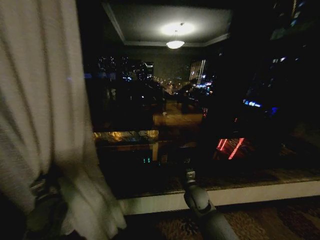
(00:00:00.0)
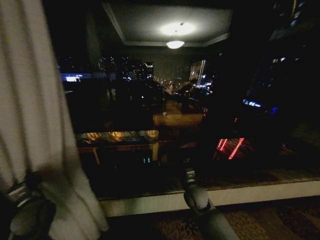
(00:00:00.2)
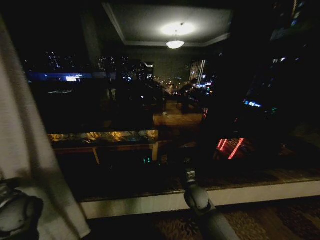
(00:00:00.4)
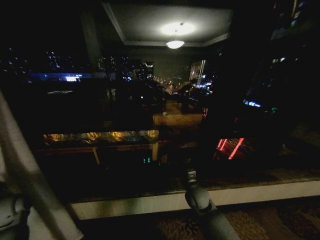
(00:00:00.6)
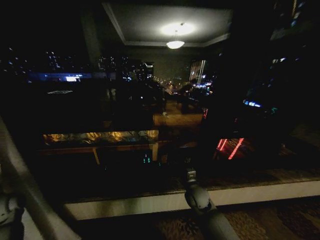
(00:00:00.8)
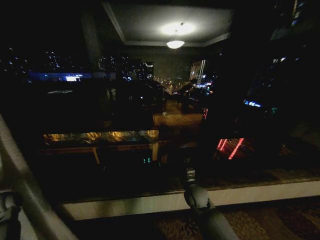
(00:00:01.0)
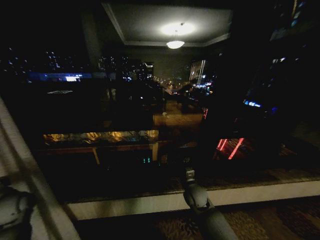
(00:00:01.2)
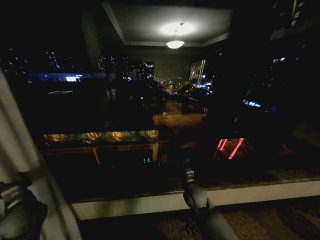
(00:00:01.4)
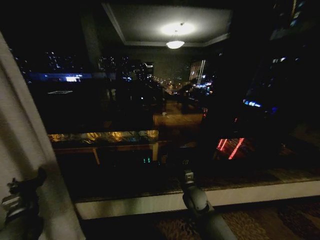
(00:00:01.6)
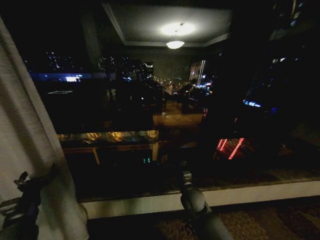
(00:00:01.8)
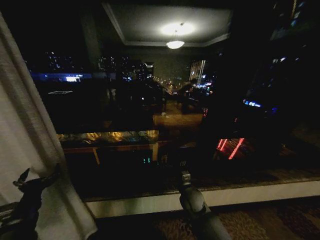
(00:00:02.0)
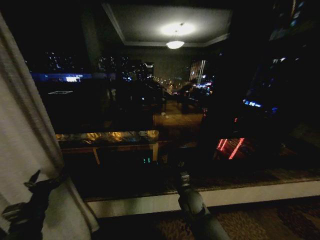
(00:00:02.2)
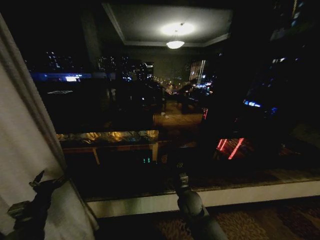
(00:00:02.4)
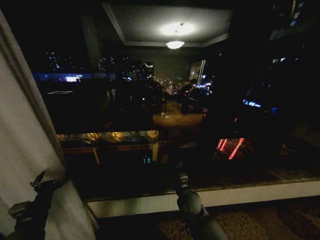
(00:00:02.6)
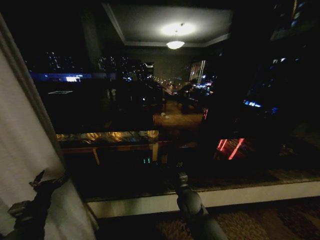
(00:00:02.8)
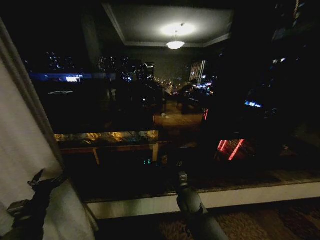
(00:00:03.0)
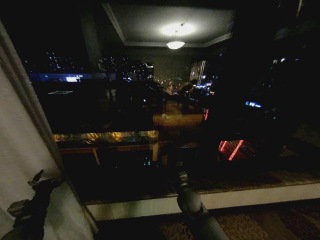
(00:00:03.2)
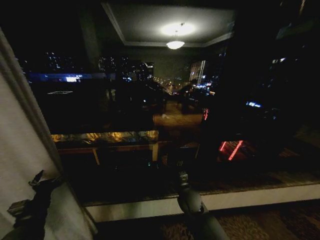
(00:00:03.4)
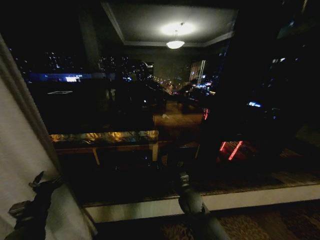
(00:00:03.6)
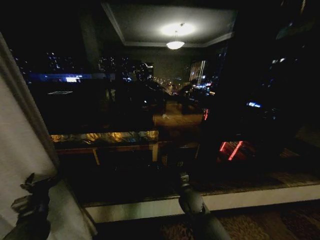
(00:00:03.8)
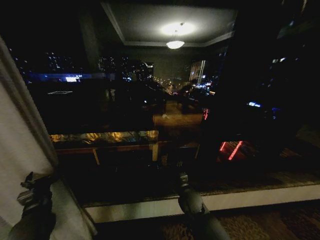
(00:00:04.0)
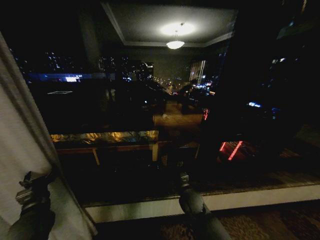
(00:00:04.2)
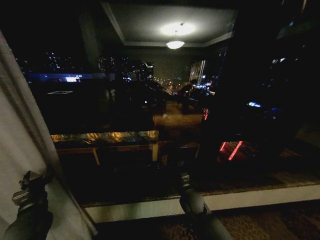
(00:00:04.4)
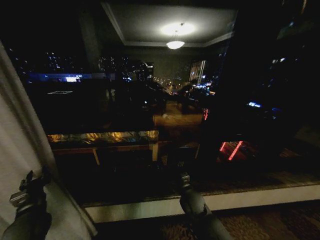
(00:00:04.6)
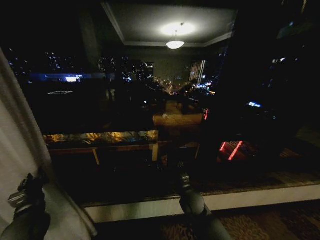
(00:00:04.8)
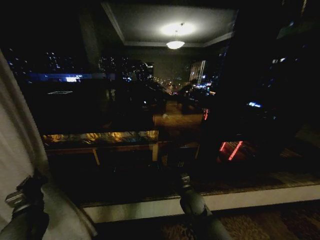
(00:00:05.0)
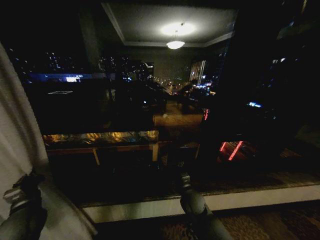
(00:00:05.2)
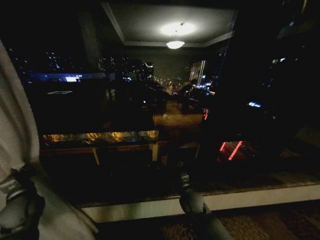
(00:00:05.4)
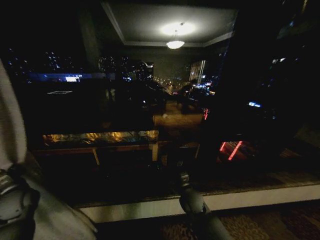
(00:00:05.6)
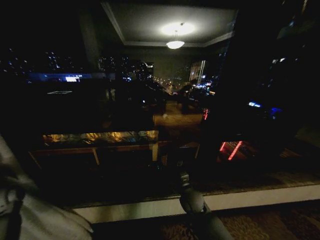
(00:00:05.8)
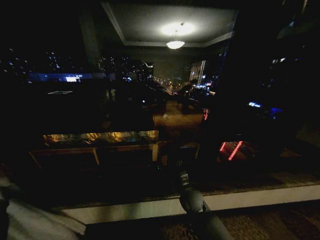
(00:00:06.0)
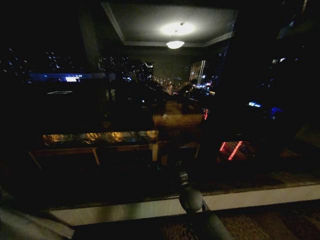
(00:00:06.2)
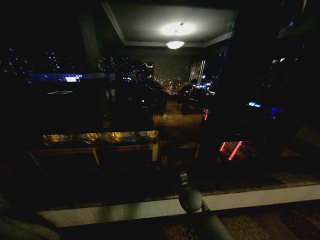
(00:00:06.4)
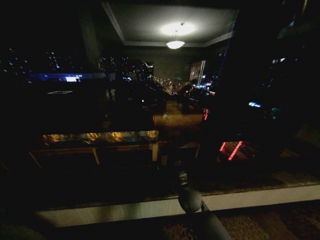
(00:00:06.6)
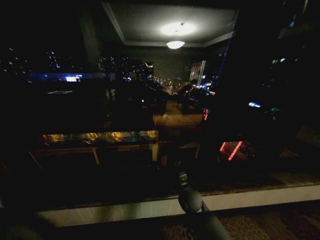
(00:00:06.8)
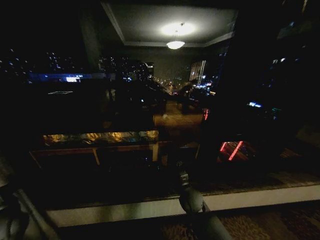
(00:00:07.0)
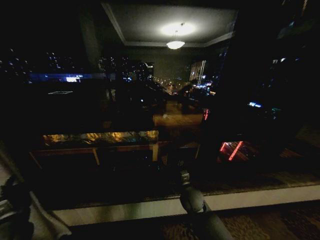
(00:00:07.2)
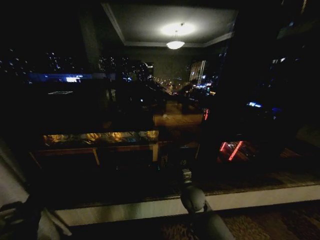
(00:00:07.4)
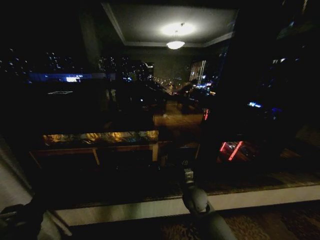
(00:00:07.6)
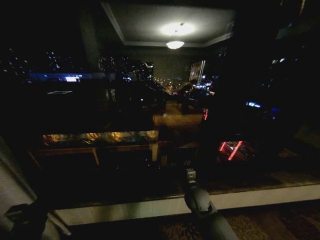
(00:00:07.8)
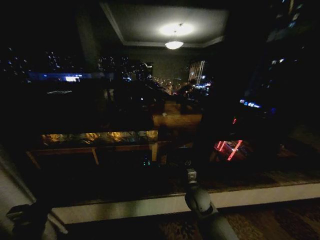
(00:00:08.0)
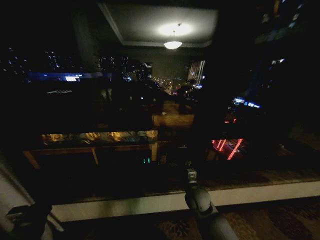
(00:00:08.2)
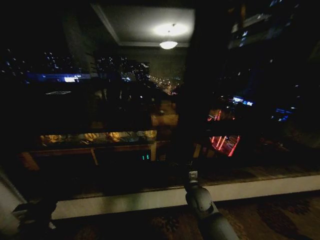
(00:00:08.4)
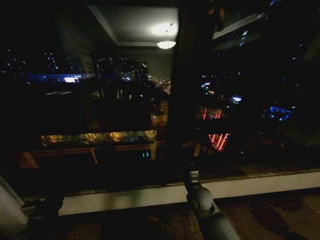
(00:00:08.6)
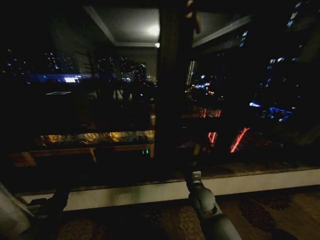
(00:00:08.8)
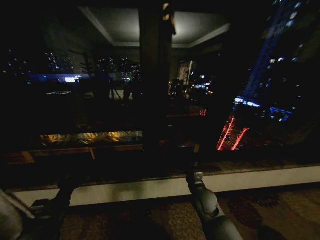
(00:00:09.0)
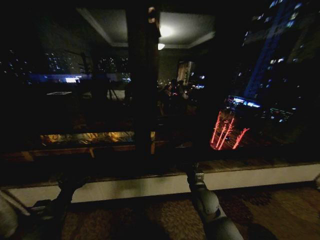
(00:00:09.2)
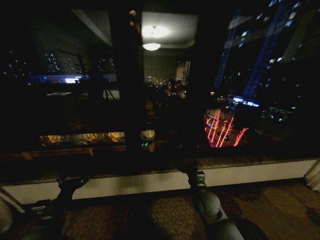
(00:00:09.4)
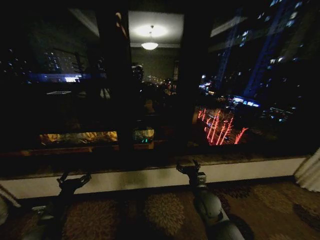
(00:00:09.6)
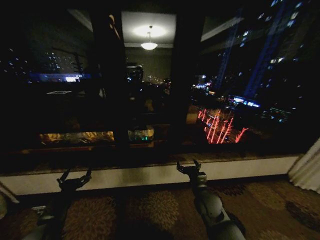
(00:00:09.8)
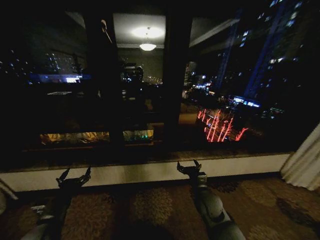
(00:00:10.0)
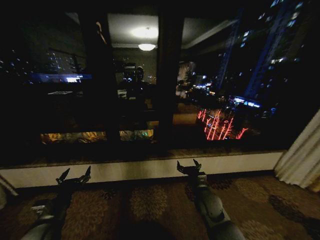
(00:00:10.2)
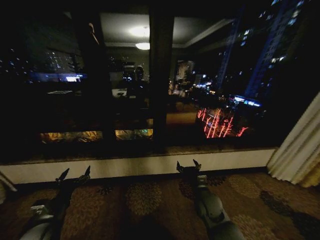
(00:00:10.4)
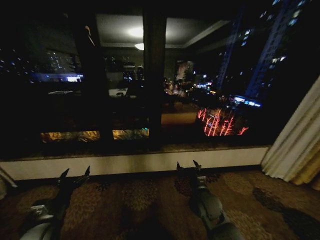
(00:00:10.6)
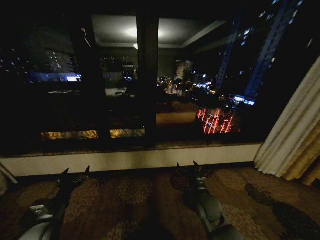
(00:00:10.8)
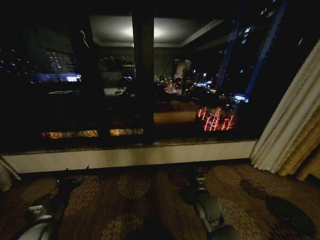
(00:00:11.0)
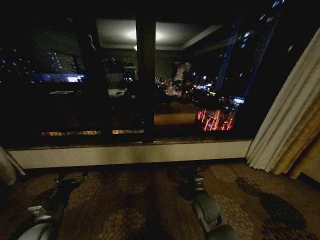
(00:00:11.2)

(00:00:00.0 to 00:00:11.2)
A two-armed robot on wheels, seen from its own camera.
Task of the whole recording: Open the curtains by pulling them apart, changing their state from closed to fully open.
00:00:00.0 - 00:00:01.6: The left gripper travels to the left and back again, approximately 20 cm each way, and opens its fingers.
00:00:03.2 - 00:00:04.8: The left gripper closes its fingers.
00:00:04.8 - 00:00:06.4: The left gripper travels to the left by roughly 25 cm.
00:00:06.4 - 00:00:08.0: The left gripper travels to the right and backward by some 25 cm, and opens up.
00:00:08.0 - 00:00:09.6: The left gripper is displaced to the right by some 5 cm.

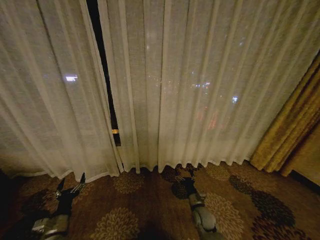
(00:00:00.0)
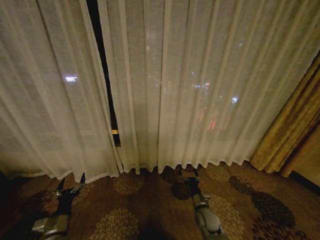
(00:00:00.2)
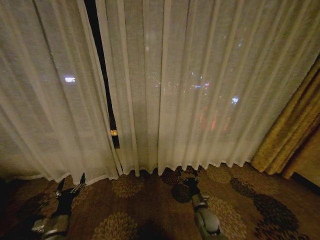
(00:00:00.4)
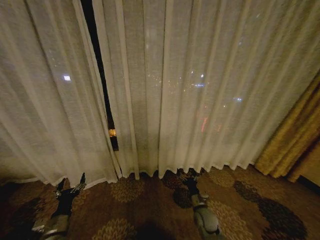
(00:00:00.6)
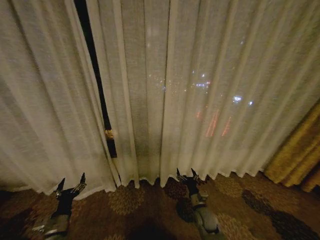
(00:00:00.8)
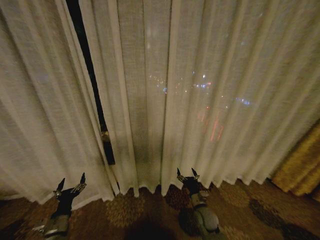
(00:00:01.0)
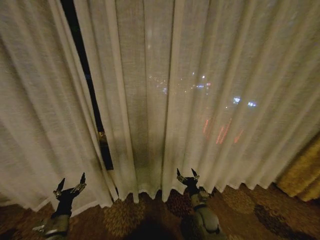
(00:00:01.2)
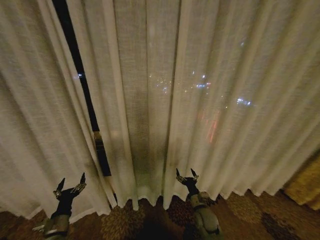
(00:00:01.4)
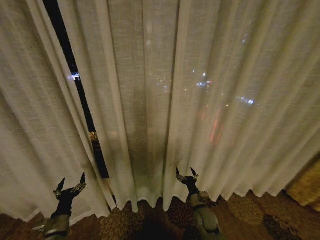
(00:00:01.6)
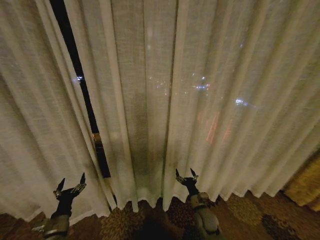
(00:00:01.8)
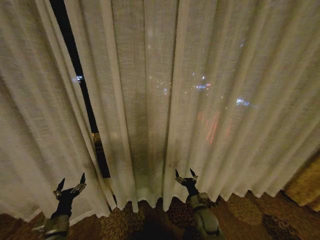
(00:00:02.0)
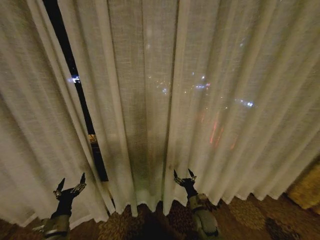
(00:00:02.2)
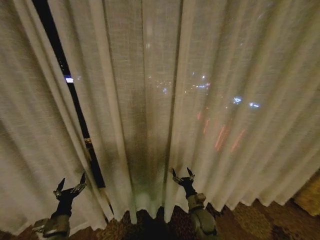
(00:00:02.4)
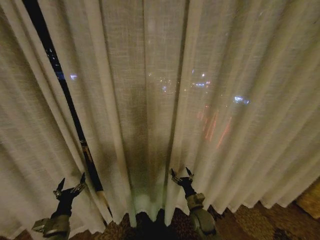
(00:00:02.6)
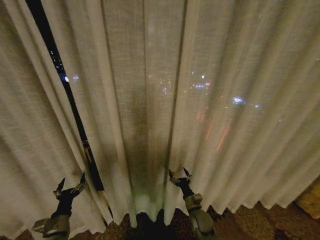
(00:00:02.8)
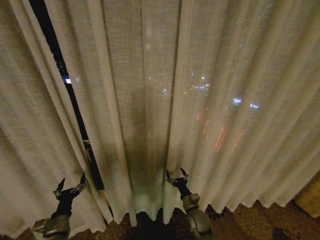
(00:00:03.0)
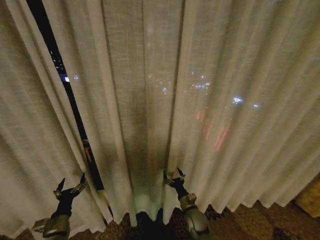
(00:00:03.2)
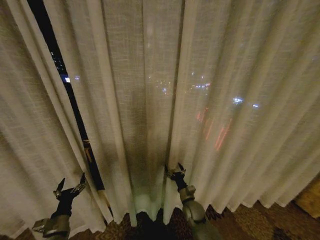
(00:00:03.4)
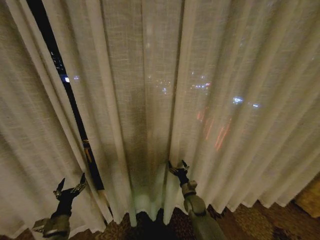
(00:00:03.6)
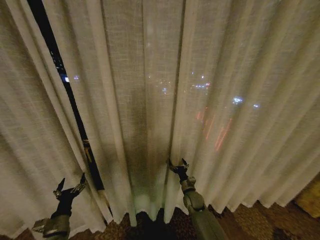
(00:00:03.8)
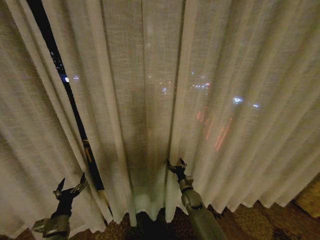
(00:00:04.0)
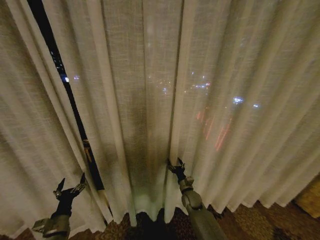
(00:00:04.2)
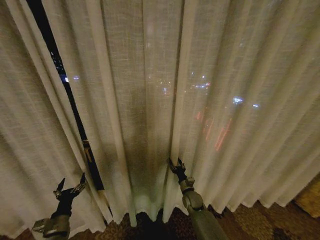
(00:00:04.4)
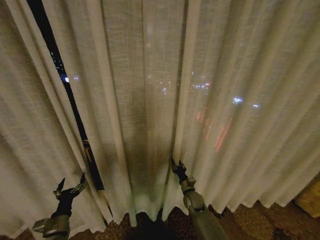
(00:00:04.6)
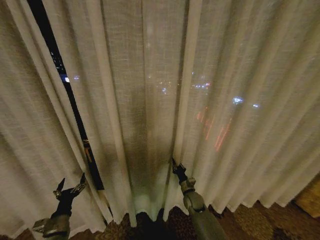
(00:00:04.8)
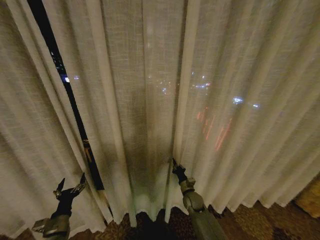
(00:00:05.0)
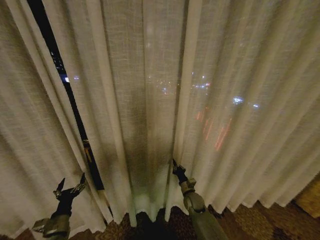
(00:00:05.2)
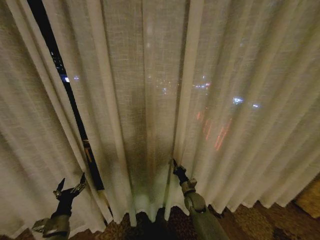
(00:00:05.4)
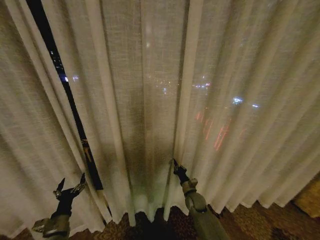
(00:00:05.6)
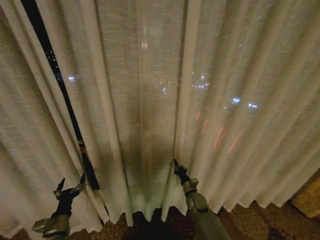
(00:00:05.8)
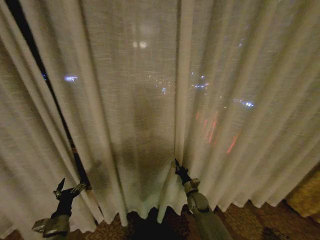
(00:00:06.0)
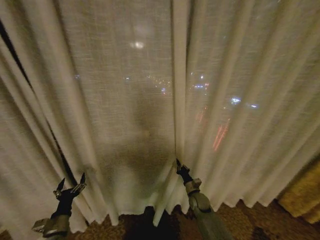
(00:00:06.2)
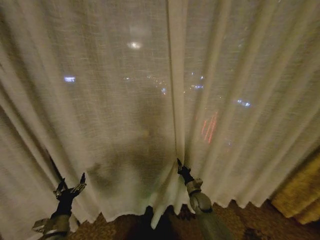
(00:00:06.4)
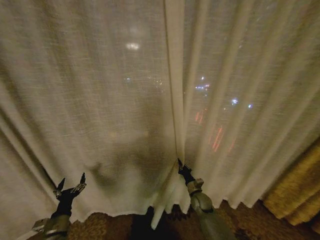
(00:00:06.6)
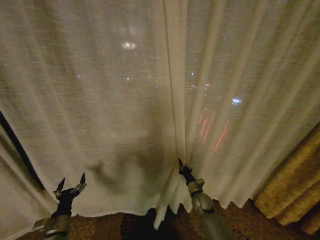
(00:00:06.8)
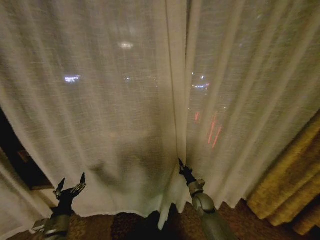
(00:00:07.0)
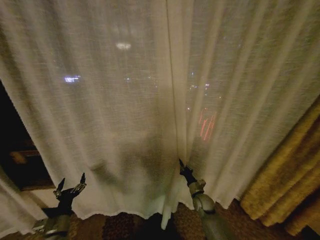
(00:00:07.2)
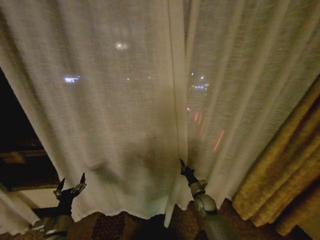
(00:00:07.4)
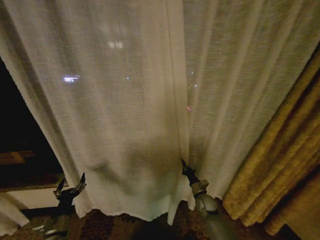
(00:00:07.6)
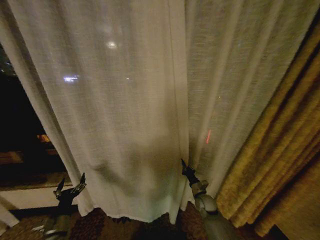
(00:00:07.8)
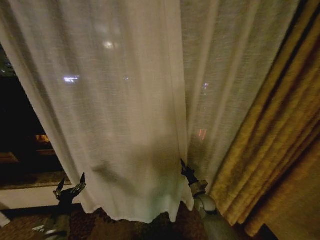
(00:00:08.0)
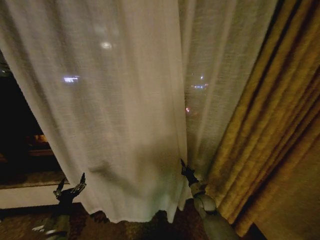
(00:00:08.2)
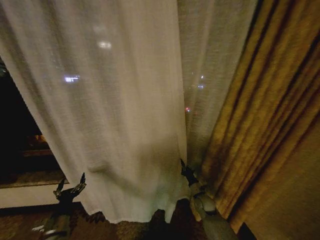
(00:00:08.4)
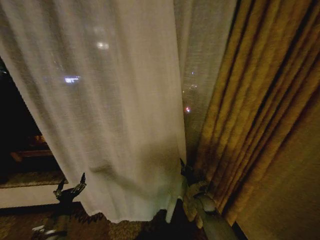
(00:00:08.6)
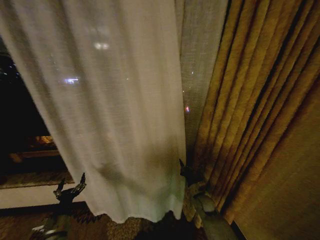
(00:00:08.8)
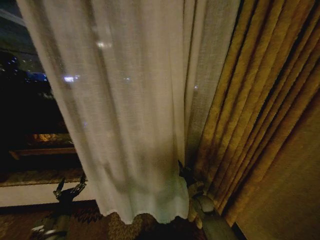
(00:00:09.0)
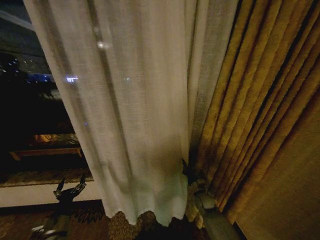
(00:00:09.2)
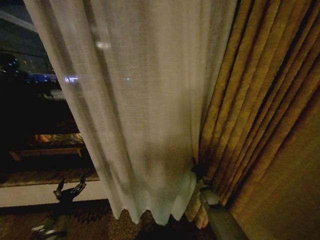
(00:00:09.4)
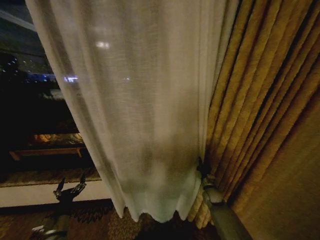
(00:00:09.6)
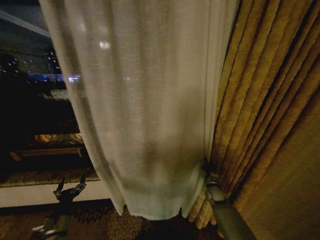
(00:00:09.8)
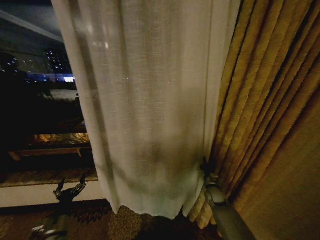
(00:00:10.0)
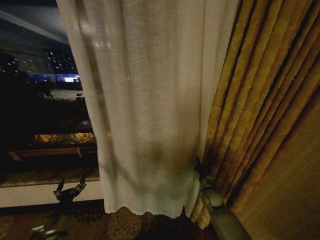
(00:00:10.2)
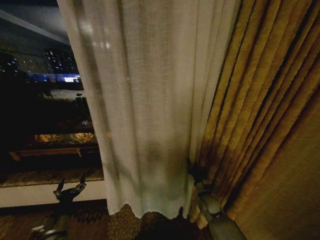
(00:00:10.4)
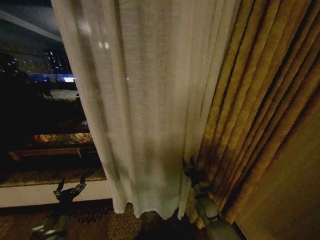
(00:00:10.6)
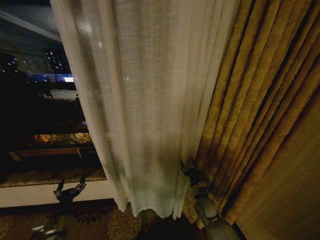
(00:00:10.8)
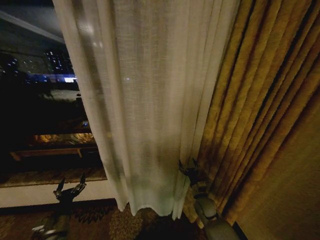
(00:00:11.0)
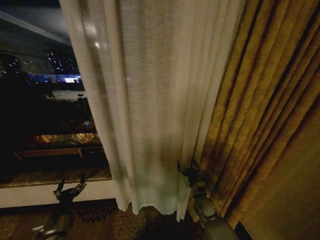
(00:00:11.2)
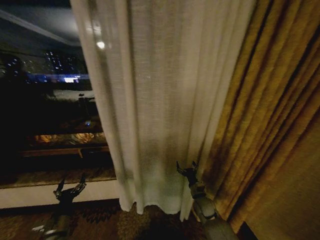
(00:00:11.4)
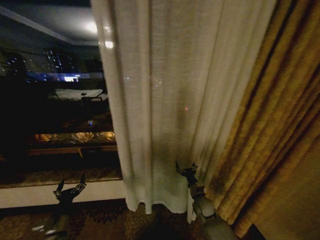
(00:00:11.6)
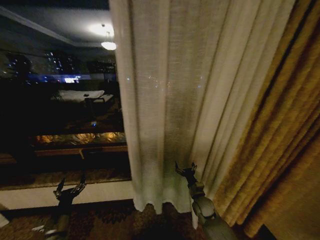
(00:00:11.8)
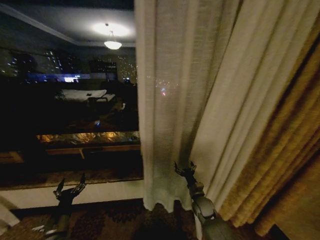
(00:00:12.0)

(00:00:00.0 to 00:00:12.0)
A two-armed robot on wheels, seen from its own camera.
Task of the whole recording: Open the curtains by pulling them apart, changing their state from closed to fully open.
00:00:03.0 - 00:00:04.4: The right gripper heads forward, covering approximately 10 cm, and closes up.
00:00:04.4 - 00:00:06.0: The right gripper closes.
00:00:09.0 - 00:00:10.4: The right gripper goes to the right and returns, approximately 10 cm each way.
00:00:10.4 - 00:00:12.0: The right gripper opens its fingers.
